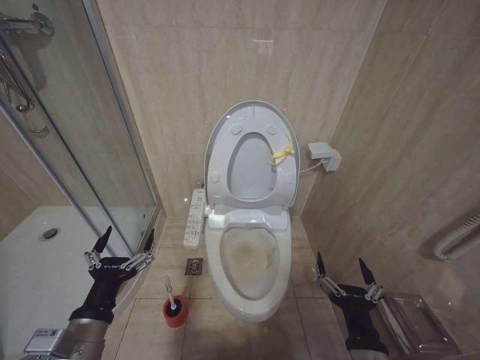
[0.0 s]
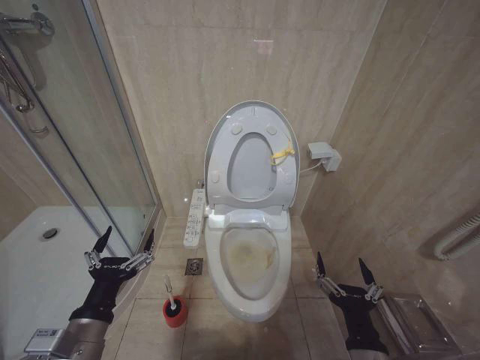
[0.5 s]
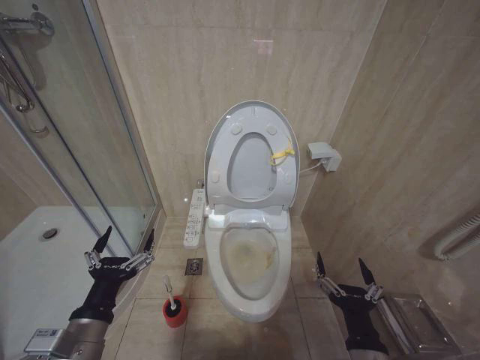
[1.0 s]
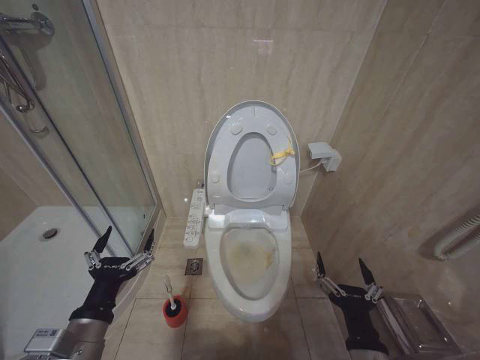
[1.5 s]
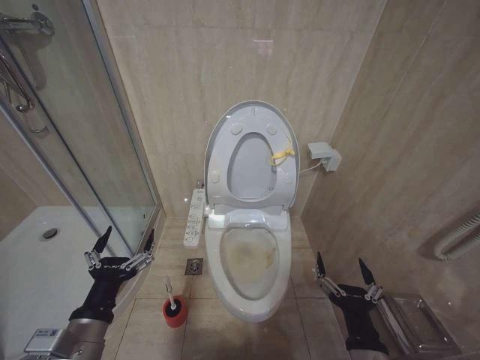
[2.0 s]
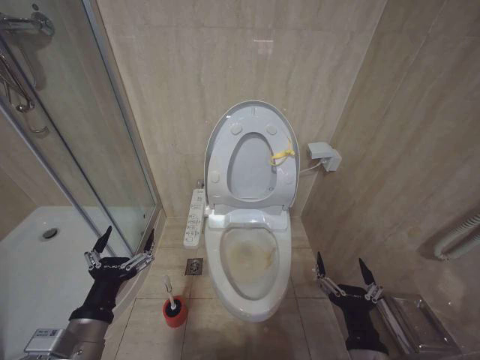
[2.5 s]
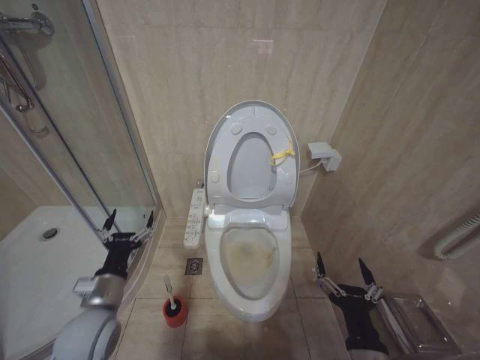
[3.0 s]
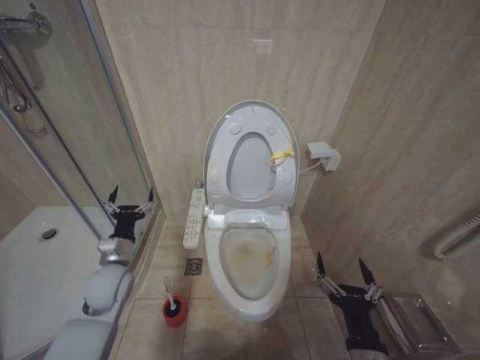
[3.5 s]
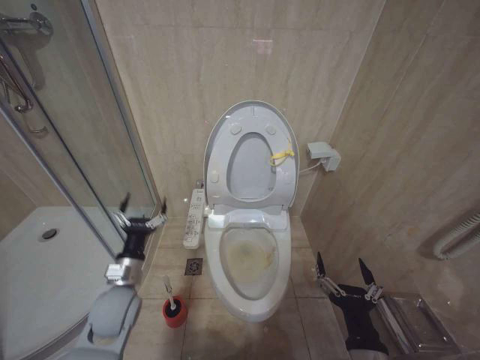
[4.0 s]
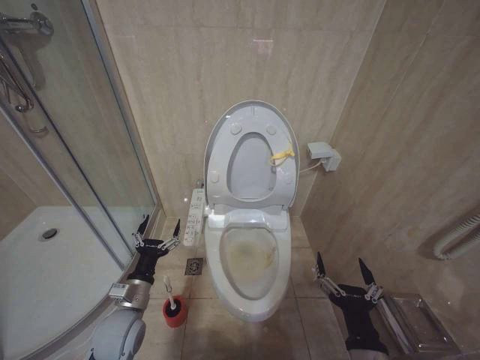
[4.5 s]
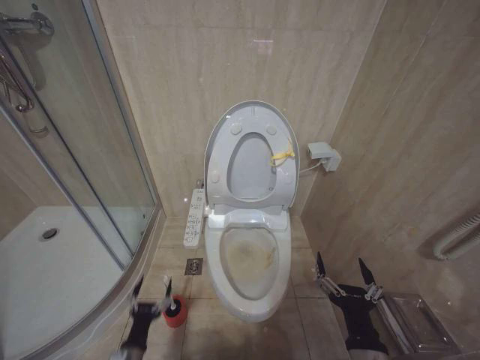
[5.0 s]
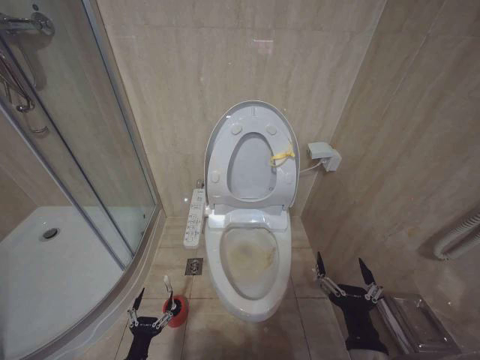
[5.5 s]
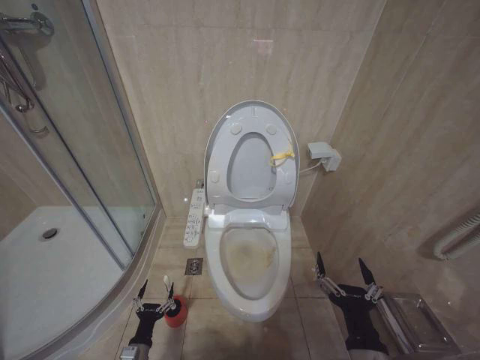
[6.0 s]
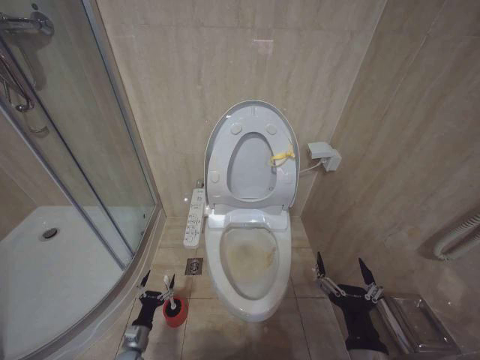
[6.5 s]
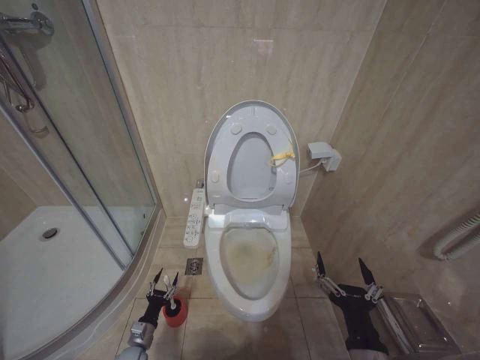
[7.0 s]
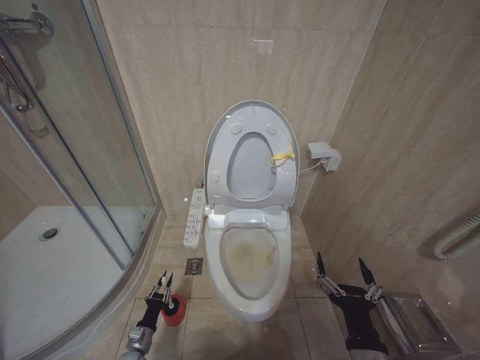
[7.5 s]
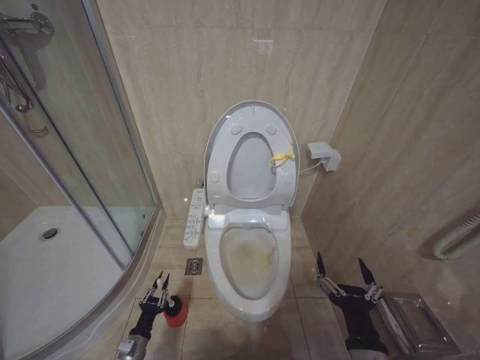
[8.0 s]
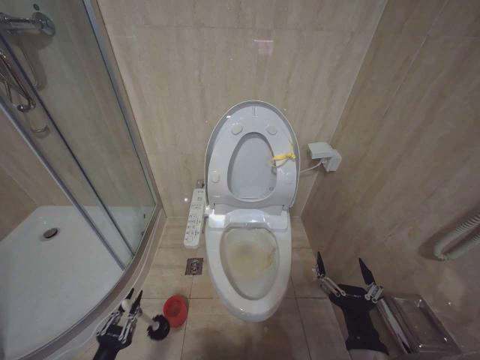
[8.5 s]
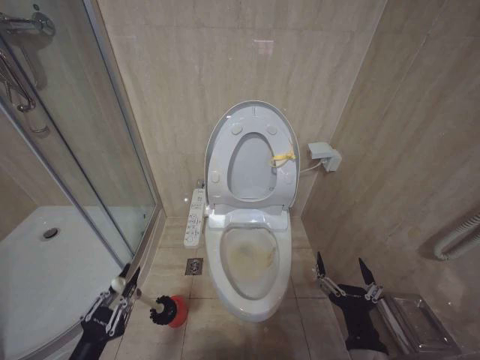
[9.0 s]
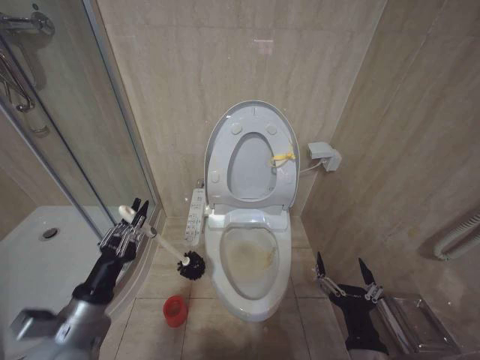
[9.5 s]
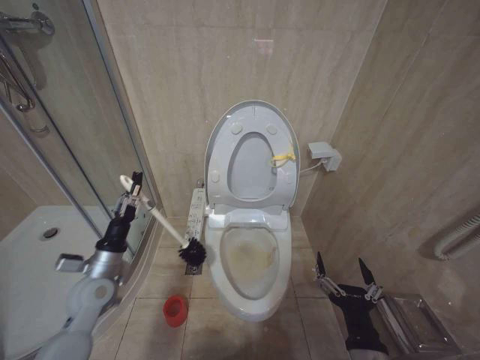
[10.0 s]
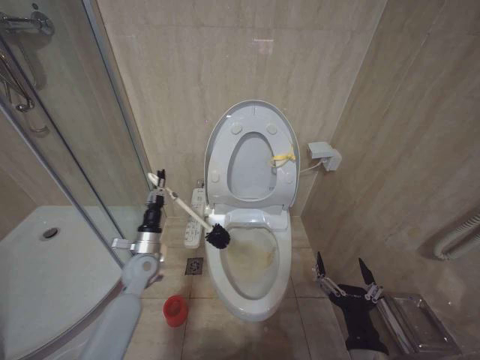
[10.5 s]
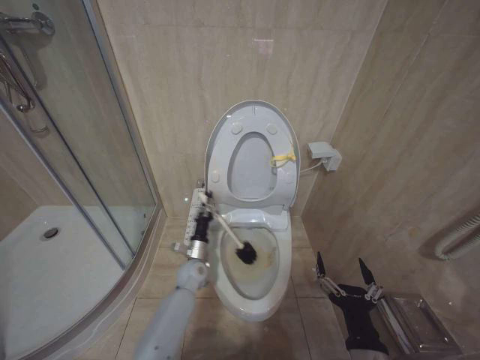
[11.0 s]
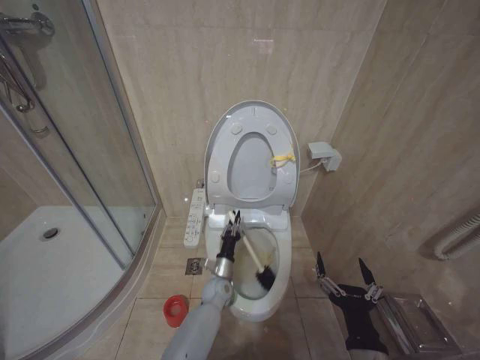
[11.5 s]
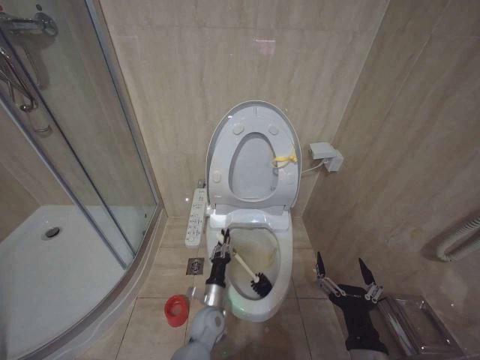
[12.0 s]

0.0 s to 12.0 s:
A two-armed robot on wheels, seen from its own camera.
Task of the whole recording: Open the toilet lid, clean the toilet bowl with a toilet brush, close the toilet lid, and flush.
0.0 to 2.0 s: Both grippers stay about where they are.
2.0 to 4.0 s: The left gripper moves forward and downward, about 15 cm.
4.0 to 6.0 s: The left gripper shifts approximately 30 cm downward and backward.
6.0 to 8.0 s: The left gripper closes up.
8.0 to 10.0 s: The left gripper shifts roughly 30 cm upward.
10.0 to 12.0 s: The left gripper shifts roughly 35 cm to the right and downward.

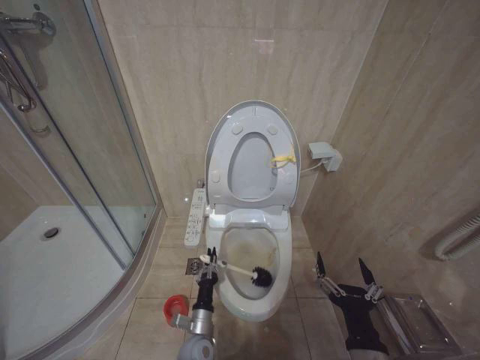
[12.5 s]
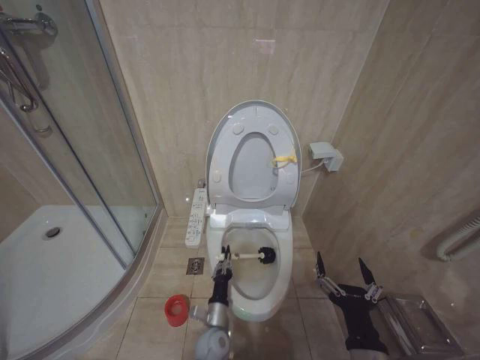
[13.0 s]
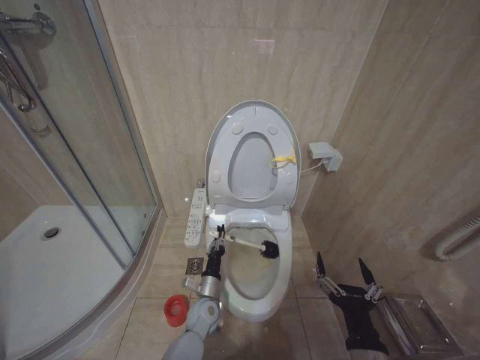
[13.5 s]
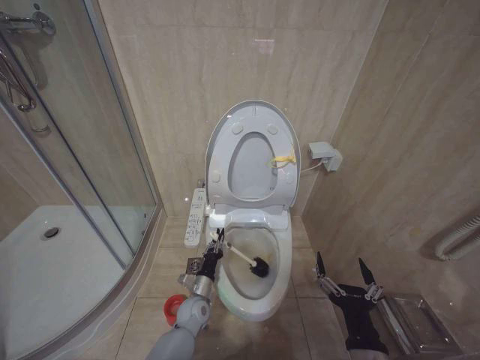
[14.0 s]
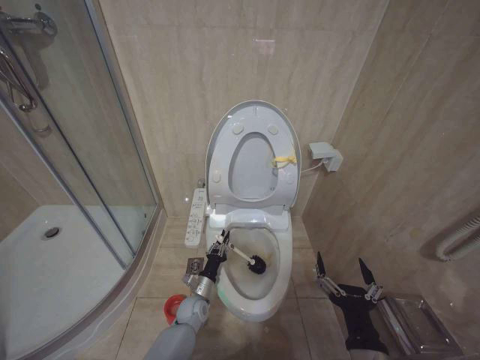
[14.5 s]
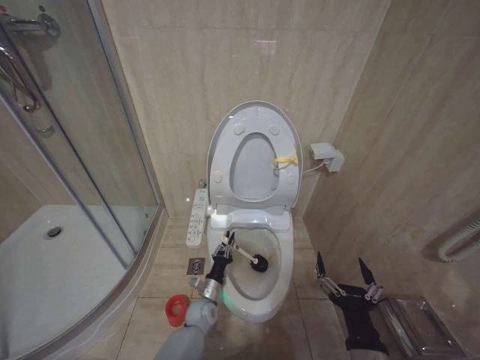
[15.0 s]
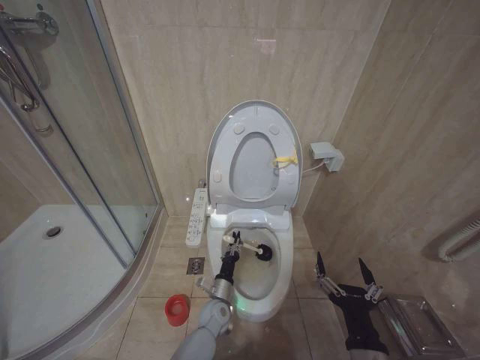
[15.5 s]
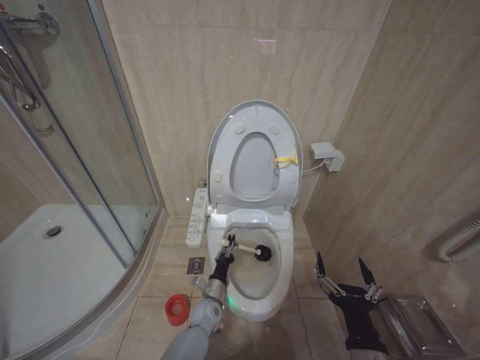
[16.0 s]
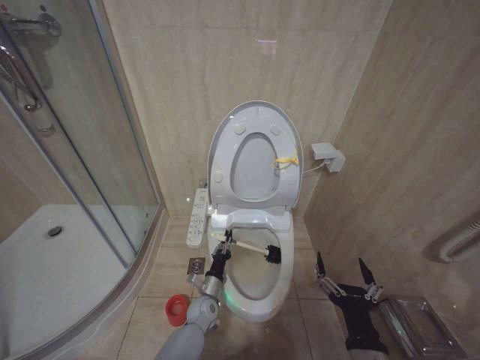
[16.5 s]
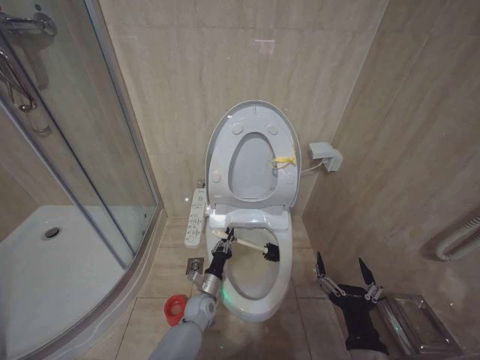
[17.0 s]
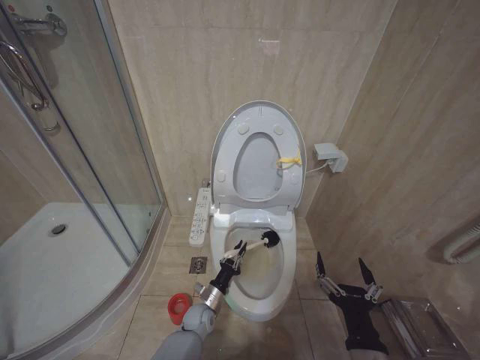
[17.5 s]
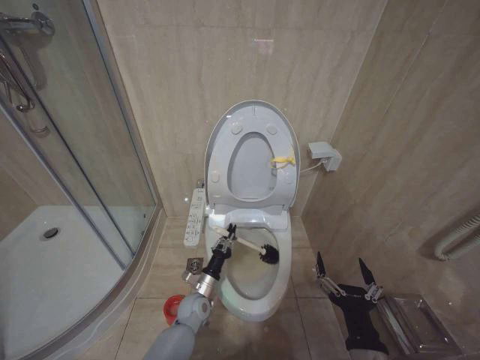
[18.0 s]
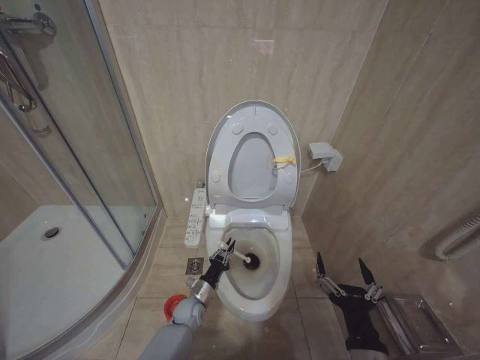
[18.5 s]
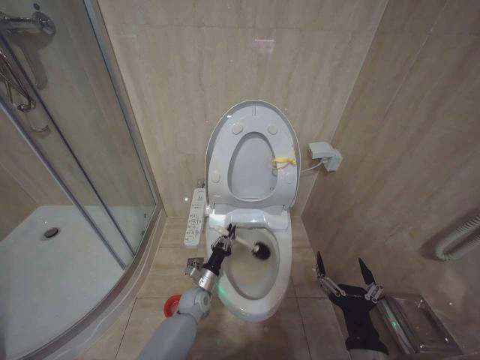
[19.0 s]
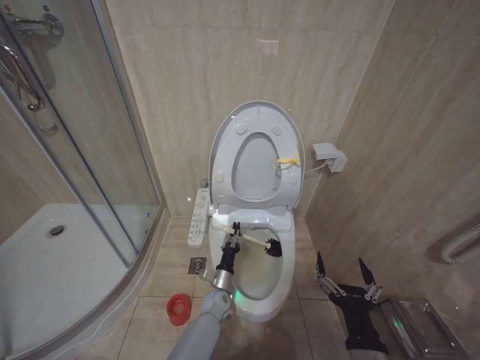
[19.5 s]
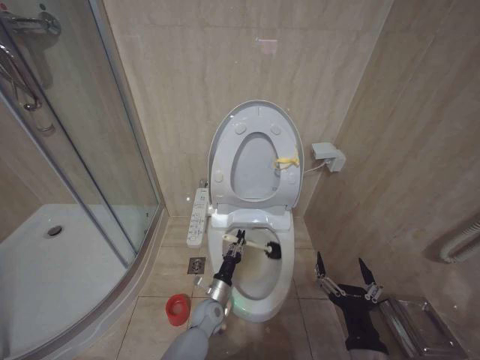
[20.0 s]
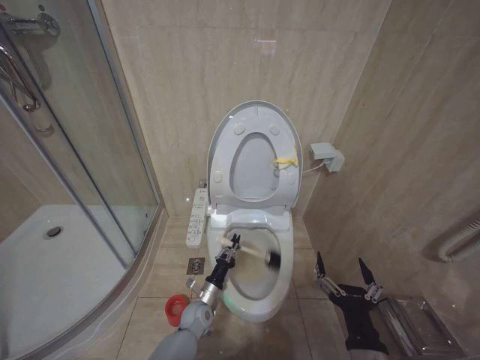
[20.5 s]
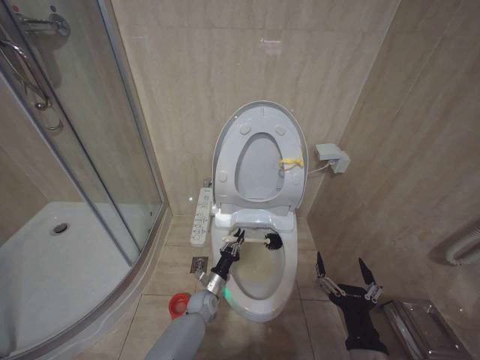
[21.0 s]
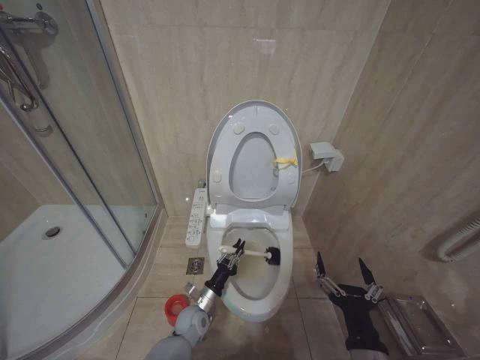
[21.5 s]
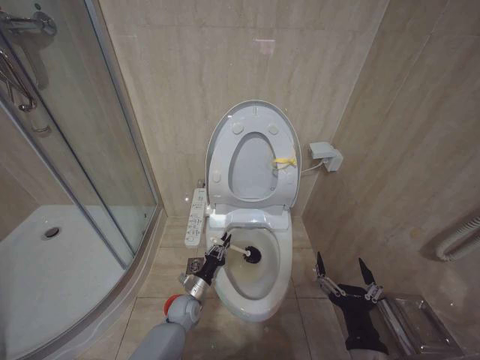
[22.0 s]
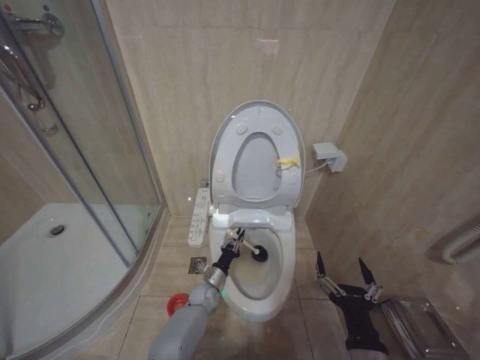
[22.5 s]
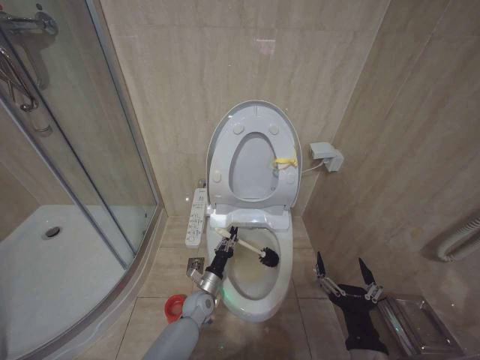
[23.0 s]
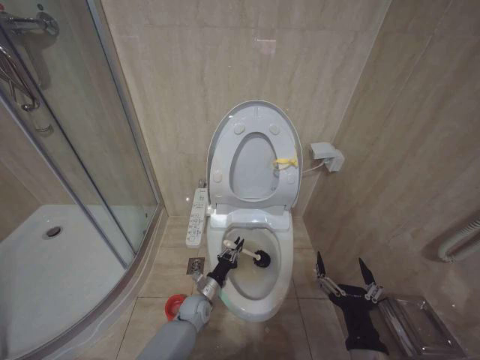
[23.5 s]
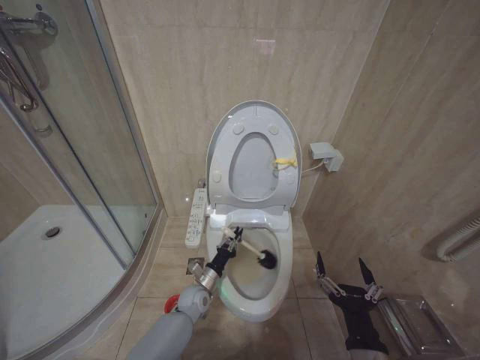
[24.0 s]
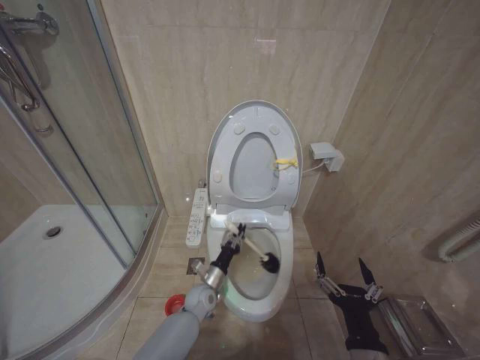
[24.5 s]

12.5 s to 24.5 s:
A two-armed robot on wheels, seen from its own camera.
Task of the whole recording: Open the toilet lid, clean the toilet bowl with a toilet brush, close the toilet lid, and flush.
12.5 to 14.5 s: The left gripper moves forward, some 10 cm.
16.5 to 18.5 s: The left gripper goes roughly 5 cm to the left.
20.5 to 22.5 s: The left gripper goes forward and backward, approximately 10 cm each way, reversing 2 times.
22.5 to 24.5 s: The left gripper moves upward, roughly 5 cm.

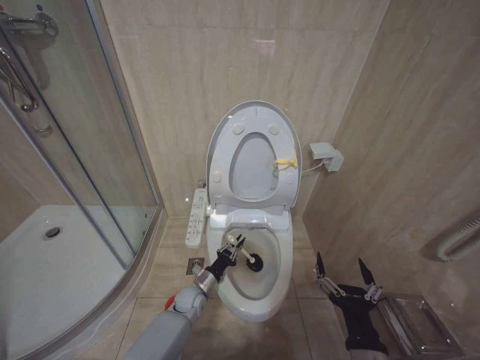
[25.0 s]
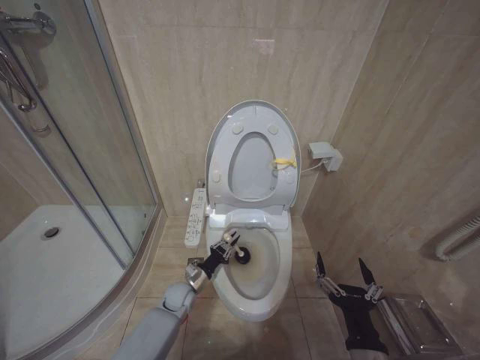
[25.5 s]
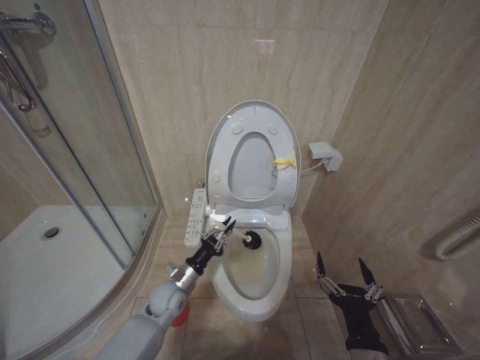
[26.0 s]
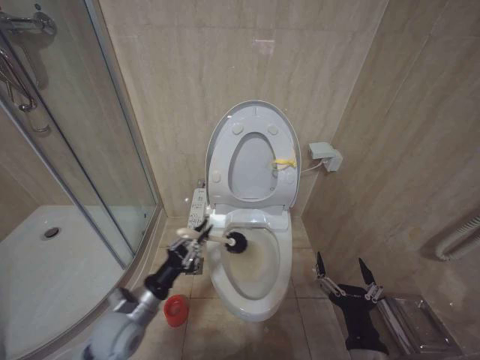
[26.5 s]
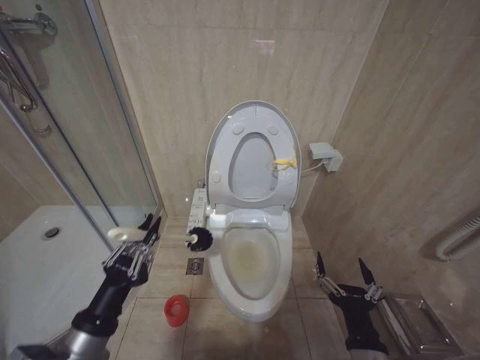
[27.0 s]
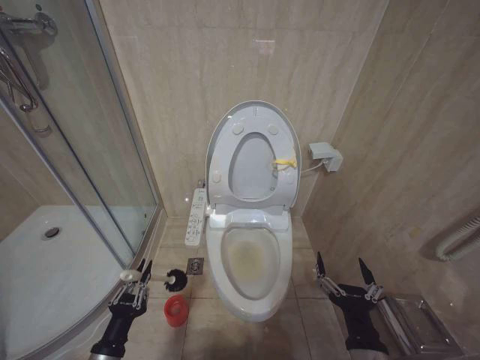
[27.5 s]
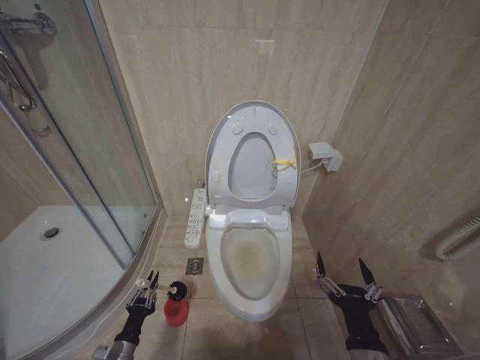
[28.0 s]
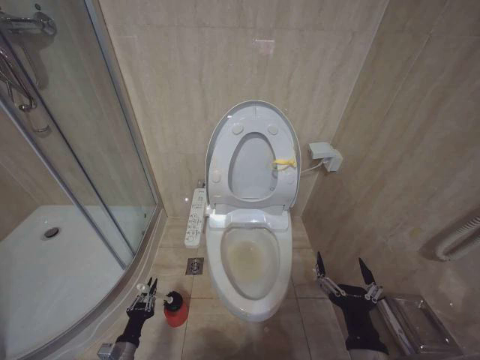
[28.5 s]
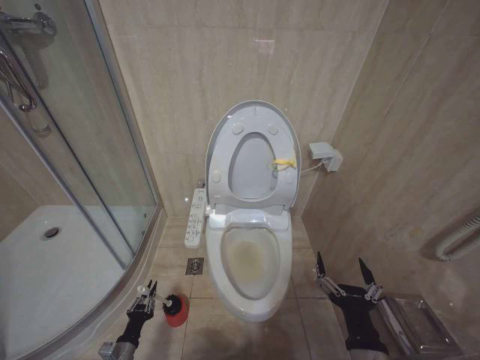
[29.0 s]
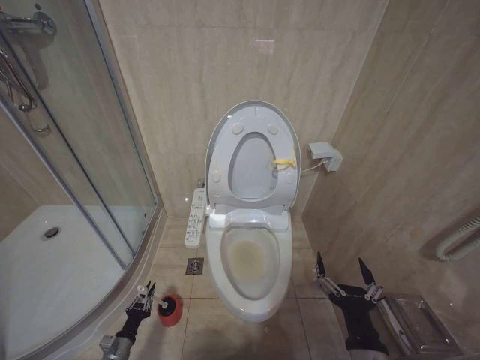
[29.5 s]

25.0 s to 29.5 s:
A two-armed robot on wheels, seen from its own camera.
Task of the whole recording: Open the toilet lid, clean the toilet bowl with a toilet brush, close the toilet lid, and flush.
25.0 to 27.0 s: The left gripper moves upward, backward and to the left, approximately 40 cm.
27.0 to 29.5 s: The left gripper heads downward, covering about 35 cm.
